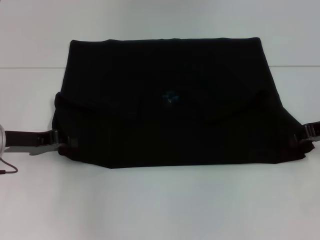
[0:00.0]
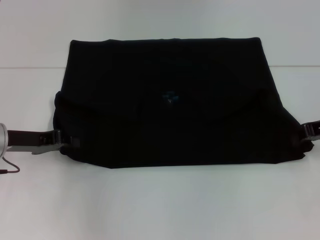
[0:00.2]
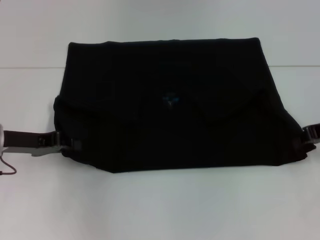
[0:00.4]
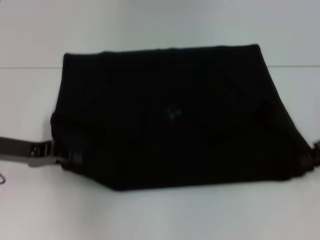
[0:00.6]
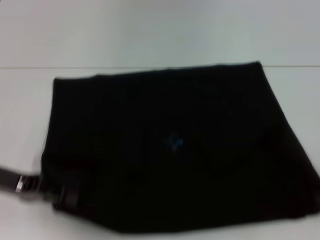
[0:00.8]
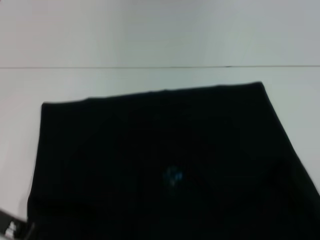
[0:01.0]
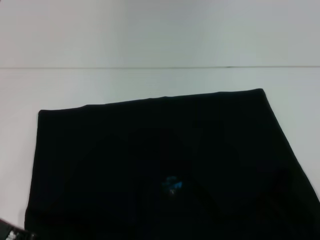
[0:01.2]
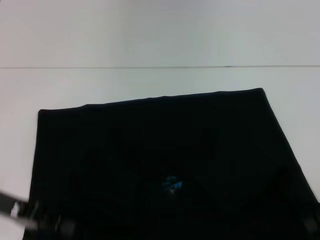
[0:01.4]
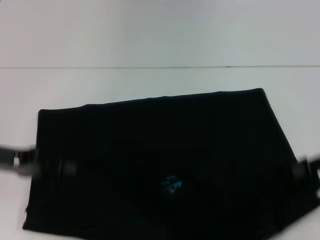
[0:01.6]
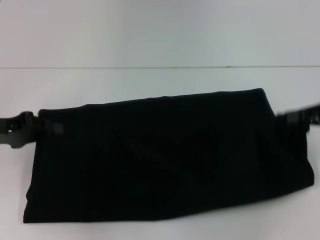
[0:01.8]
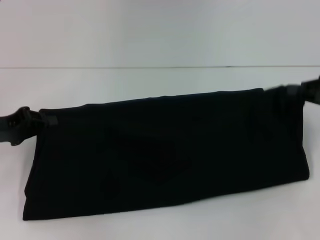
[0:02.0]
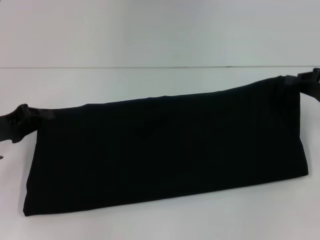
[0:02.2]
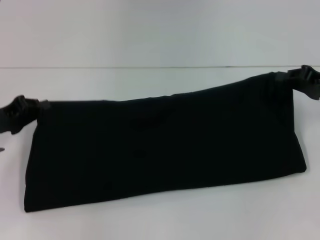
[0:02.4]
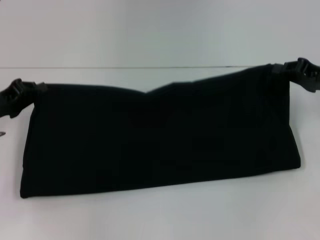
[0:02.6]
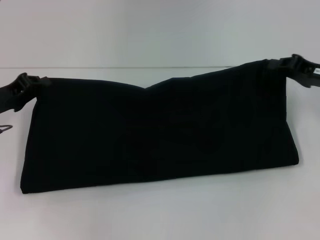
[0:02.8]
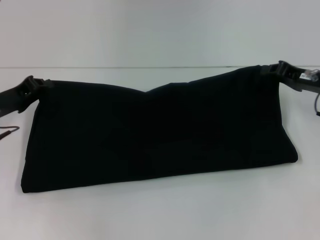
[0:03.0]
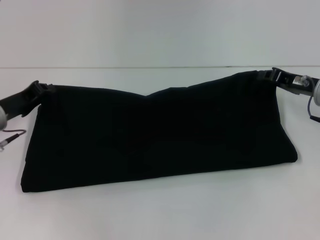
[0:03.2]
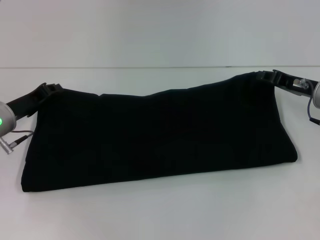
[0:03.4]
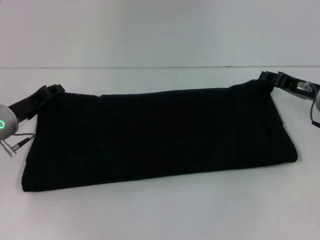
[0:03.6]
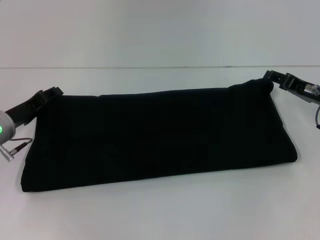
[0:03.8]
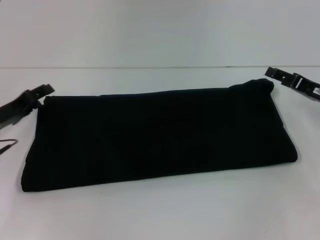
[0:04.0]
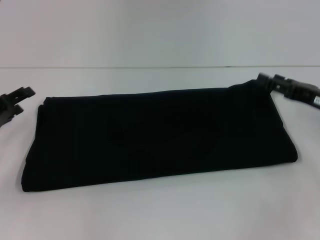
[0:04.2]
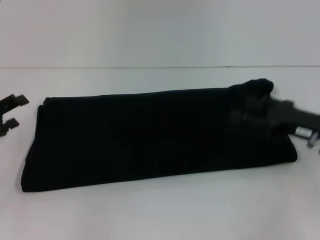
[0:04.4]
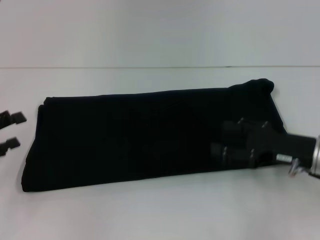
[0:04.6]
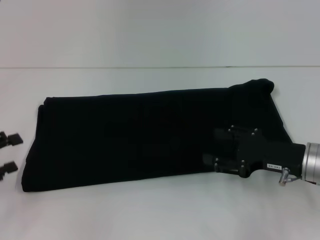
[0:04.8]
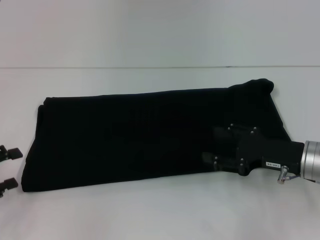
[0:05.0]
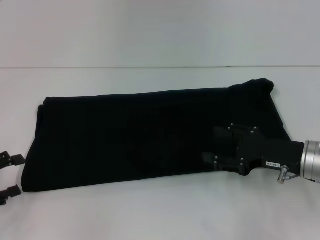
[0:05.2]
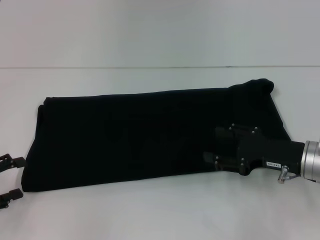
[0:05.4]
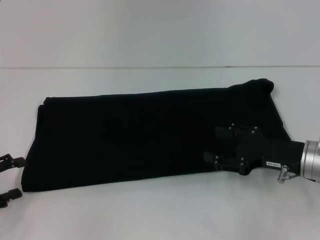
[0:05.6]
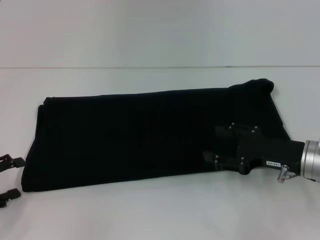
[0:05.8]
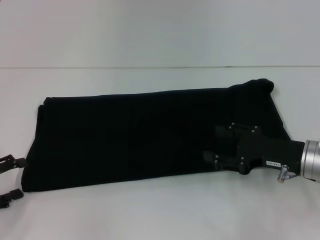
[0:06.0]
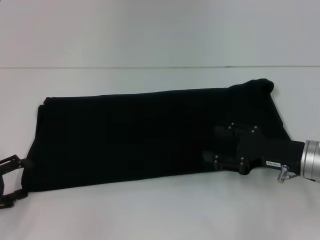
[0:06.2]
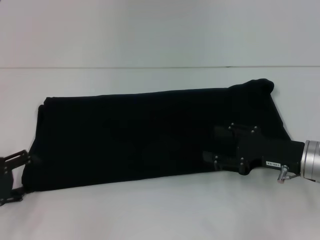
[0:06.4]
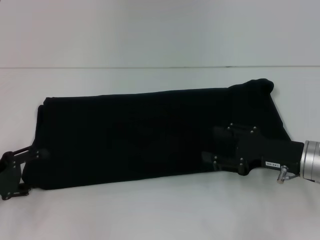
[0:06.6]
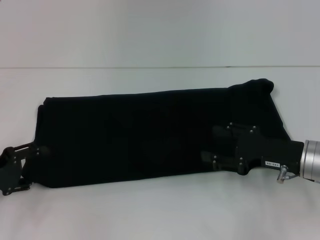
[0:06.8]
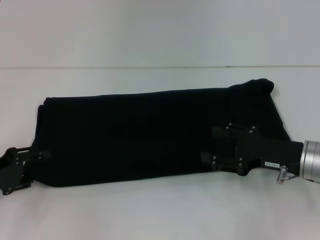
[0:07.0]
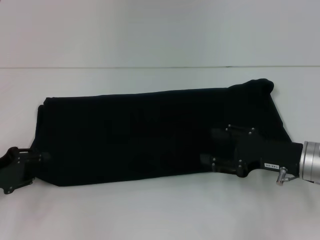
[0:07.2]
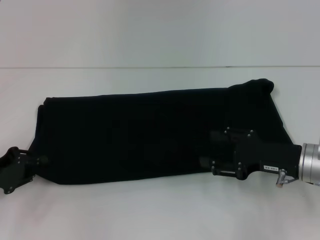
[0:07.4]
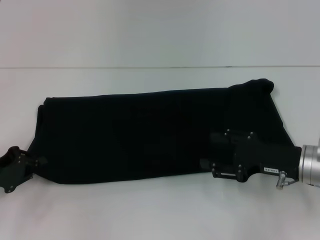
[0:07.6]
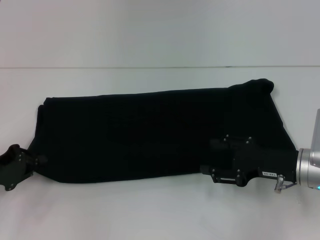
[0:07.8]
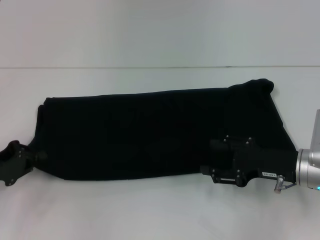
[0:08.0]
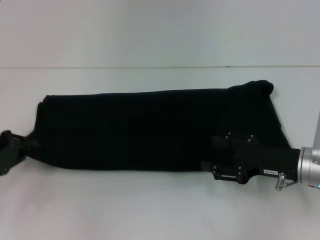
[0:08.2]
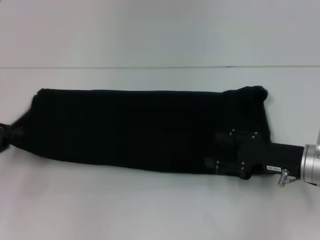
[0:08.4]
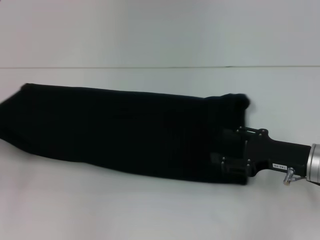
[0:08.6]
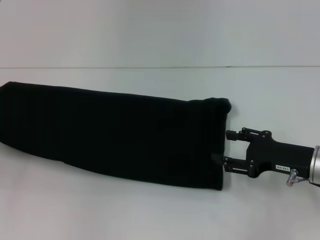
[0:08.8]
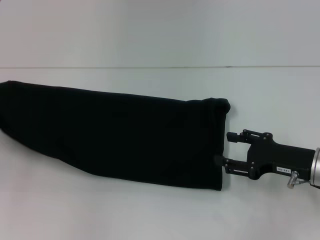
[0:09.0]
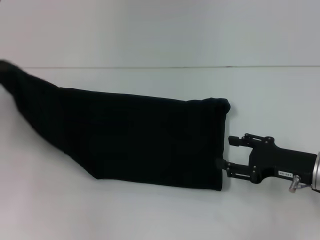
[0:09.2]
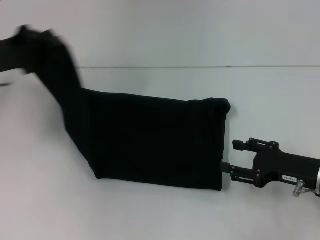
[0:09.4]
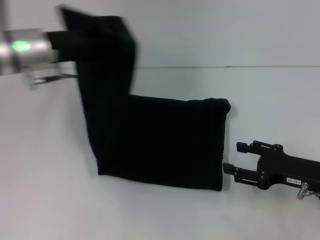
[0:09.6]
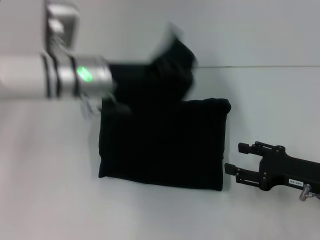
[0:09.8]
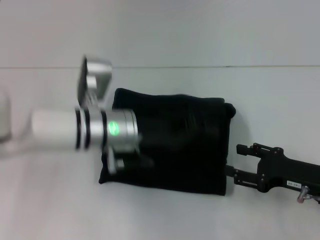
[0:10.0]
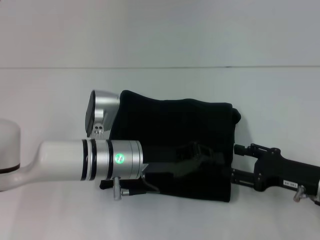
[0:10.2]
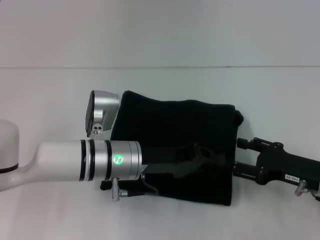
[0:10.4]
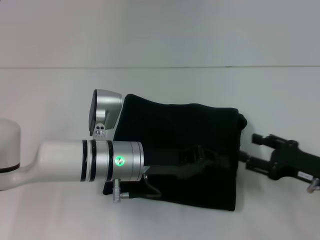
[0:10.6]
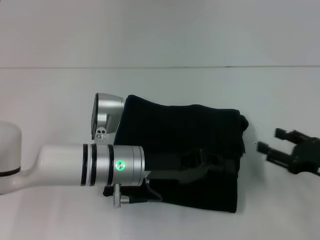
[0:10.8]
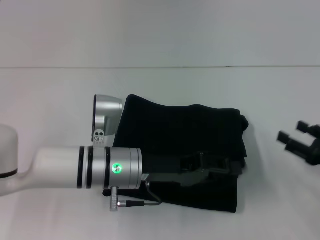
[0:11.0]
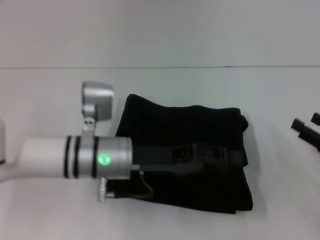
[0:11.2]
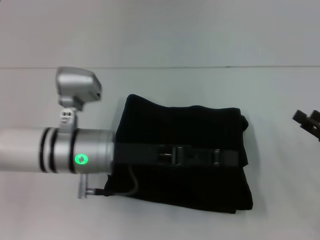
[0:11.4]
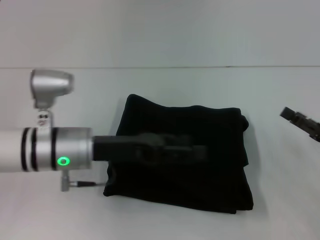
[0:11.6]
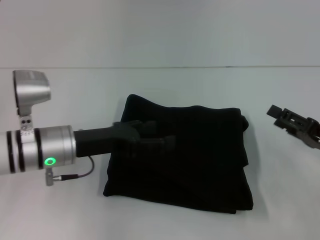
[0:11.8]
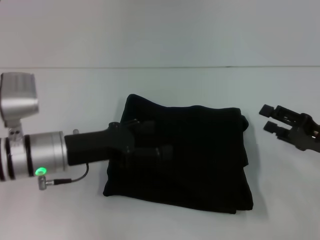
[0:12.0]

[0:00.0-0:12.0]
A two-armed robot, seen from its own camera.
Step, 0:00.8 to 0:03.8: Fold the clothes with your right hand.
Step, 0:00.8 to 0:11.4: Fold the clothes with your left hand.
0:00.0 to 0:01.6: The right gripper travels backward by about 5 cm, and closes its fingers. Meanwhile the left gripper ends up about 5 cm from where it was.
0:01.6 to 0:03.0: The right gripper is displaced forward and to the left by approximately 10 cm; the left gripper heads forward, covering about 5 cm.
0:03.0 to 0:04.4: The right gripper is displaced backward by approximately 10 cm, and opens. Meanwhile the left gripper is displaced backward and to the left by approximately 10 cm, and opens.
0:04.4 to 0:06.0: The left gripper moves backward, some 5 cm.
0:06.0 to 0:07.6: The left gripper ends up approximately 5 cm from where it was, and closes its fingers.
0:07.6 to 0:09.0: The left gripper moves to the left and upward, roughly 10 cm.
0:09.0 to 0:10.4: The left gripper is displaced to the right by approximately 30 cm.
0:10.4 to 0:12.0: The left gripper is displaced to the left by roughly 10 cm, and opens up.

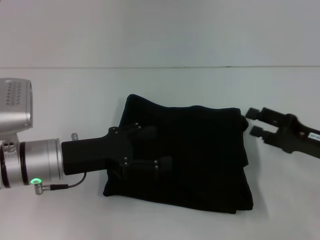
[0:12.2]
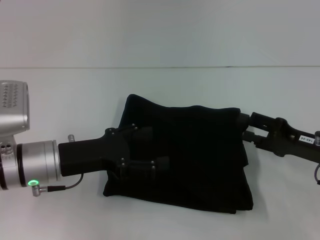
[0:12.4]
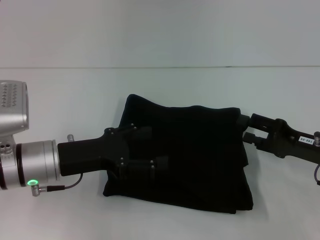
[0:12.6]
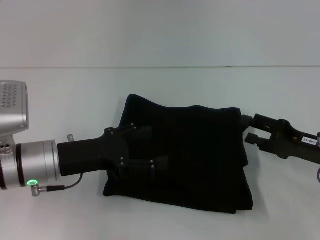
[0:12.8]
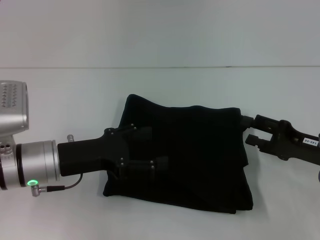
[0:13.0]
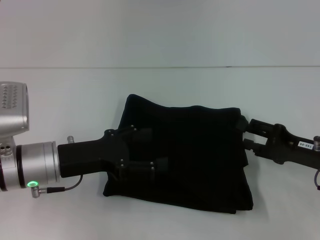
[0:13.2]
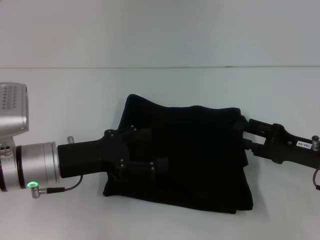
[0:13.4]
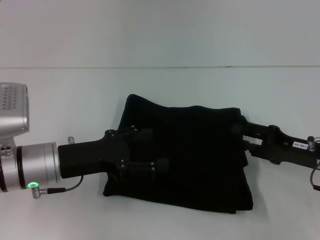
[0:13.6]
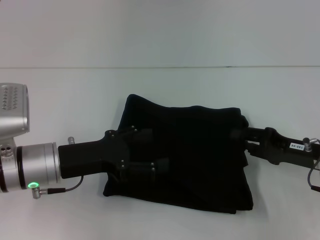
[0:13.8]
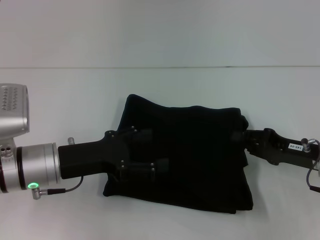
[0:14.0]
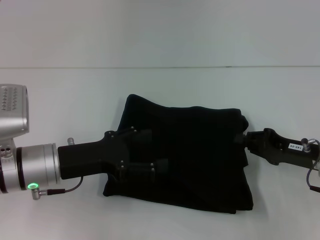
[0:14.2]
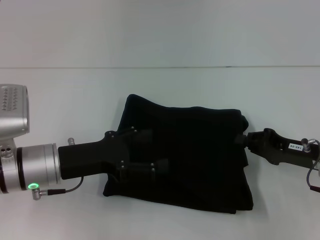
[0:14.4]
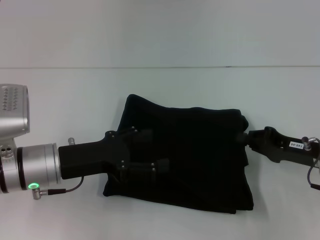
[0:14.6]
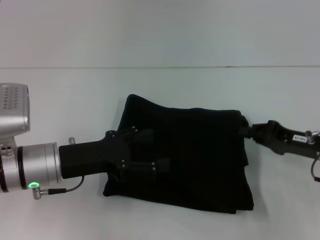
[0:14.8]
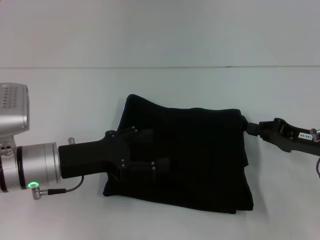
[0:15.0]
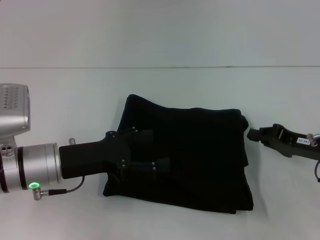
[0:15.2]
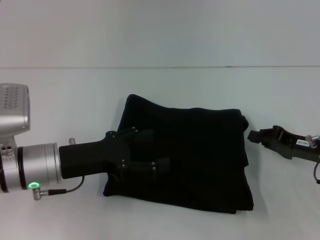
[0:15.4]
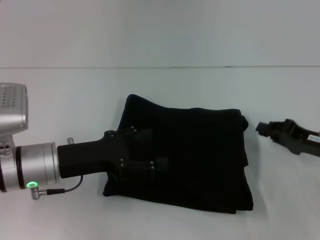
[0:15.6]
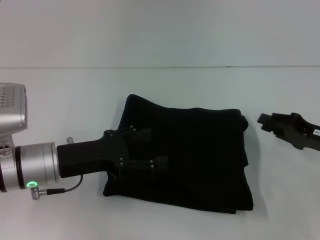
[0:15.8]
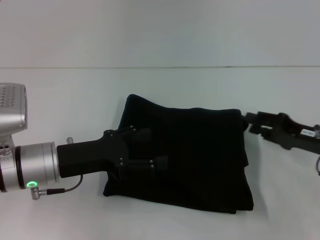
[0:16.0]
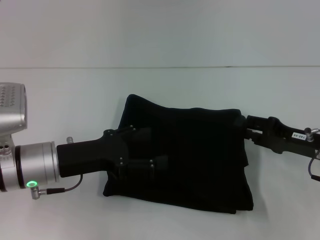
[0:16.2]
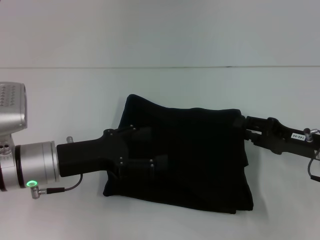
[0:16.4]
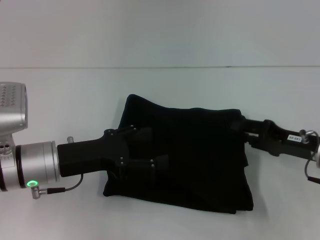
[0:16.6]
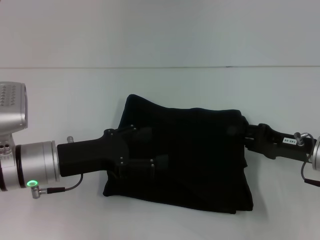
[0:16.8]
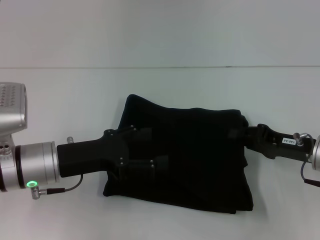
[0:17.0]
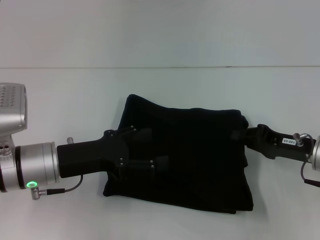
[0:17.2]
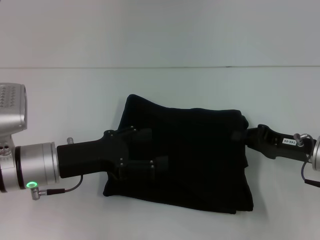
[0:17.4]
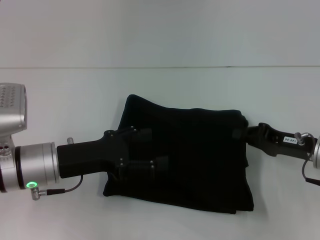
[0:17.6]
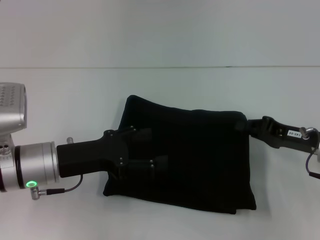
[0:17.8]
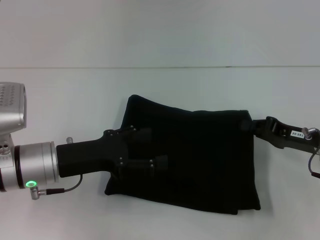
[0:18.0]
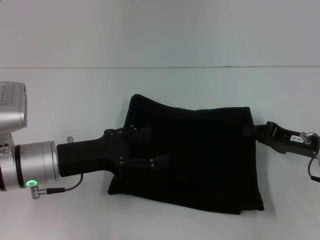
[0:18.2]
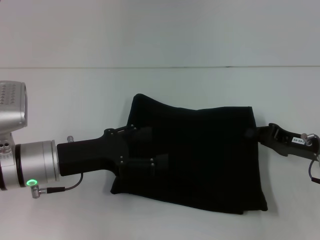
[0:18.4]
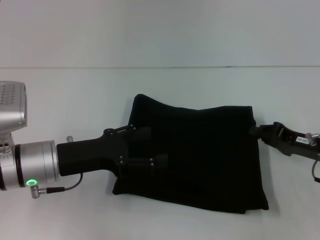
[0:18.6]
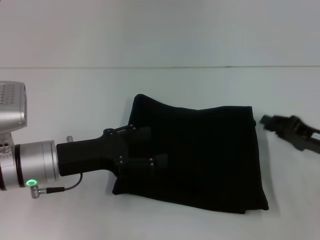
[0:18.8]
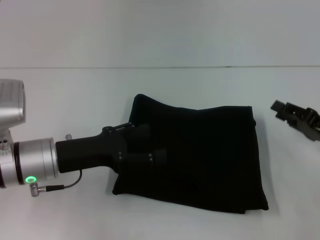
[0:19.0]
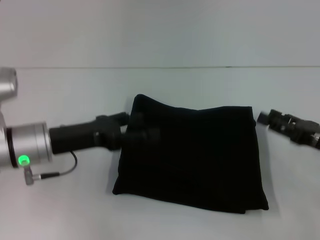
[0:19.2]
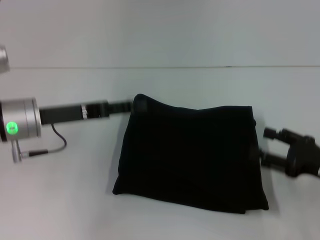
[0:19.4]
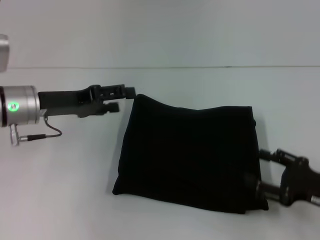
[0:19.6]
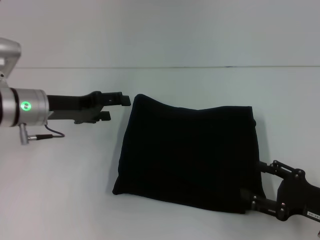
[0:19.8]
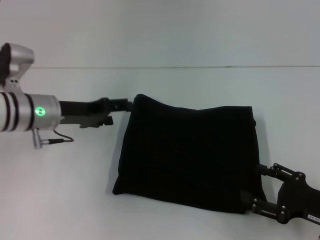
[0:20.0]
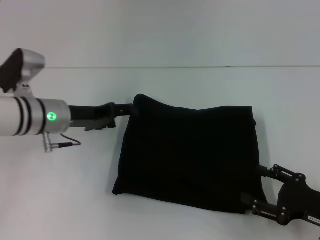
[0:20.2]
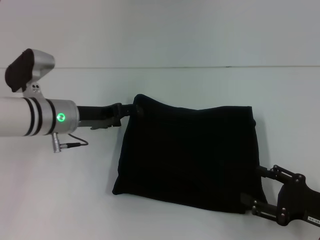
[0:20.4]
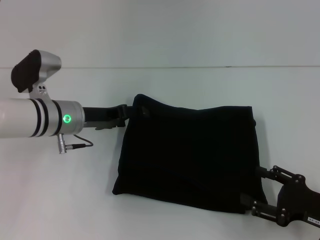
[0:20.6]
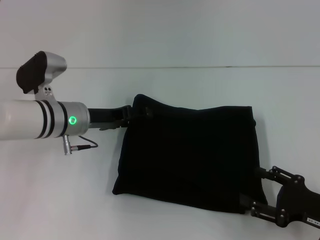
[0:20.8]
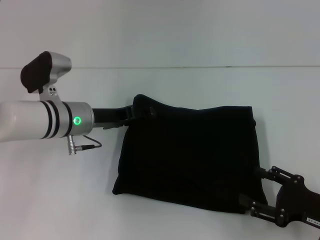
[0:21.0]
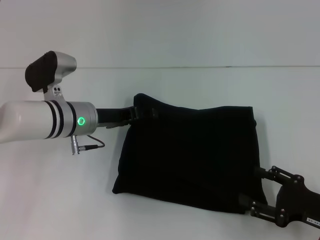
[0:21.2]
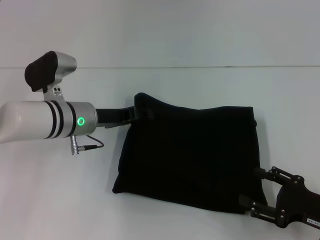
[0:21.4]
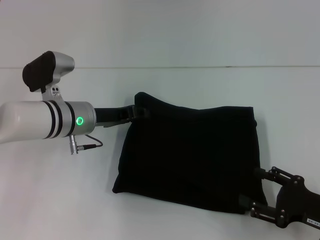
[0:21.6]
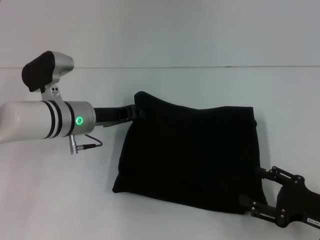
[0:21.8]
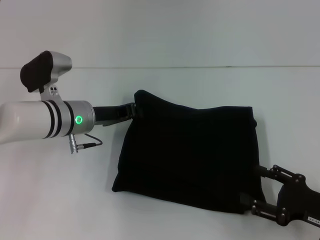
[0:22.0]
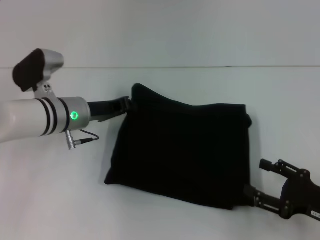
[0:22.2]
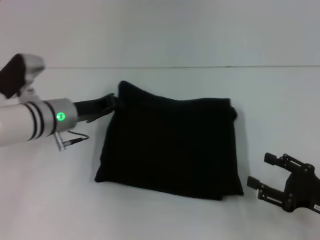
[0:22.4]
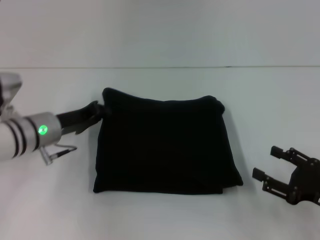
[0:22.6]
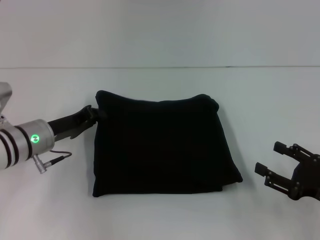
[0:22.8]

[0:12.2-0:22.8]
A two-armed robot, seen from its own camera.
0:12.2 to 0:13.8: The grippers stay close to where they were, moving slightly.
0:13.8 to 0:15.2: The right gripper closes its fingers.
0:15.2 to 0:16.8: The right gripper opens its fingers.
0:16.8 to 0:18.2: The right gripper closes up.
0:18.2 to 0:19.8: The right gripper moves backward, roughly 10 cm, and opens its fingers. Meanwhile the left gripper goes about 10 cm forward.
0:19.8 to 0:21.2: The left gripper travels to the right by approximately 5 cm.
0:21.2 to 0:22.8: The left gripper shifts some 5 cm to the left, and closes up.
